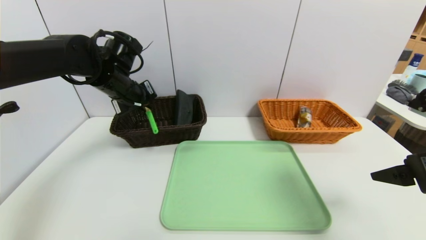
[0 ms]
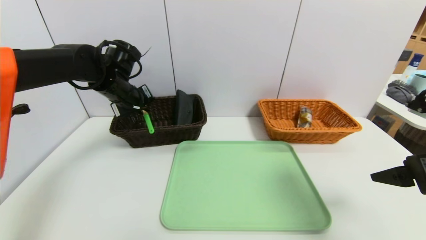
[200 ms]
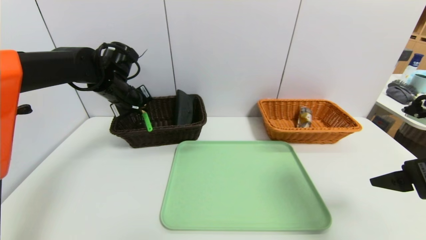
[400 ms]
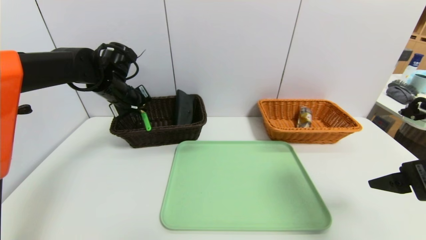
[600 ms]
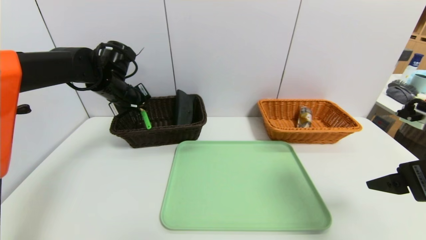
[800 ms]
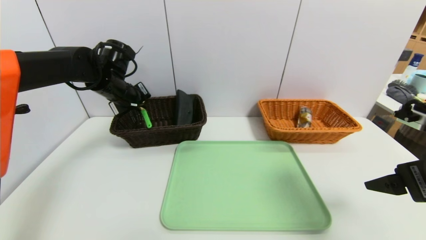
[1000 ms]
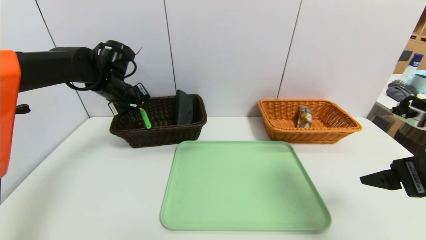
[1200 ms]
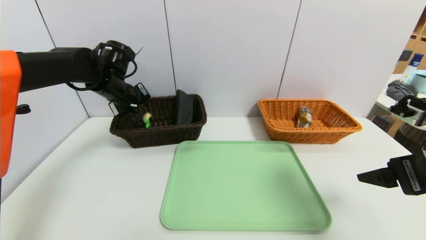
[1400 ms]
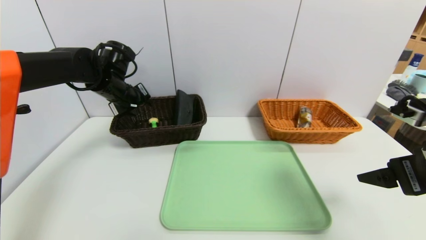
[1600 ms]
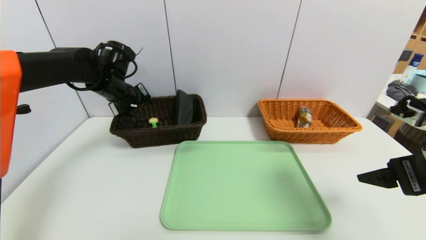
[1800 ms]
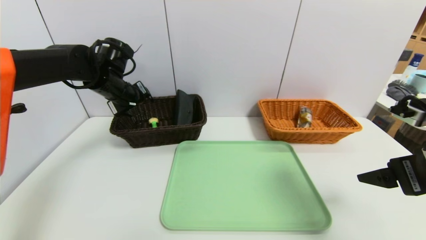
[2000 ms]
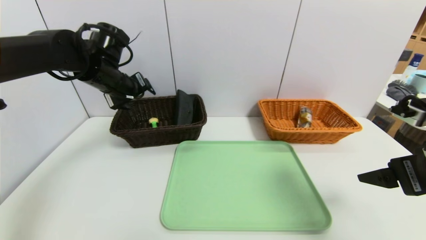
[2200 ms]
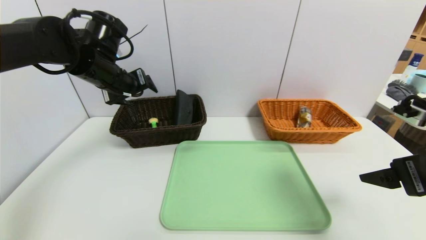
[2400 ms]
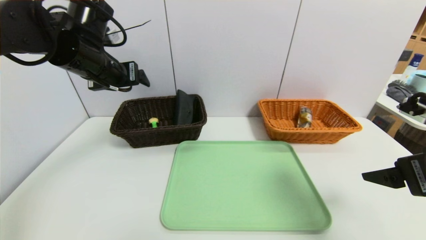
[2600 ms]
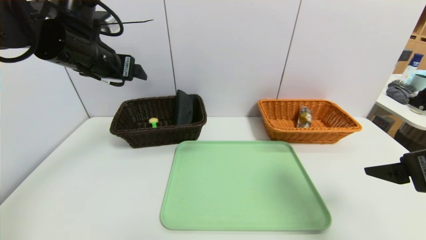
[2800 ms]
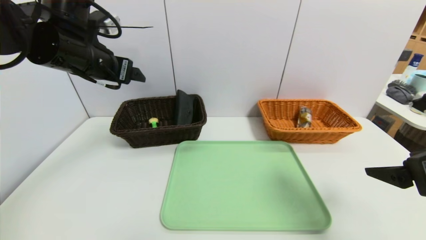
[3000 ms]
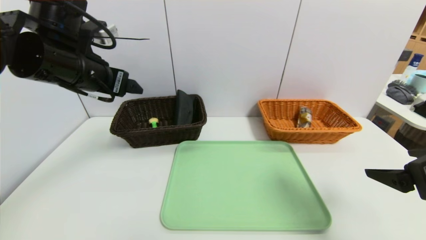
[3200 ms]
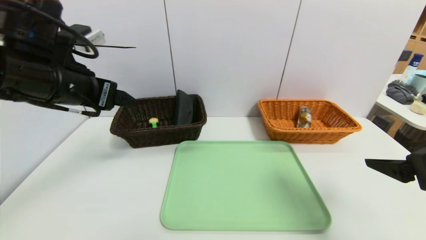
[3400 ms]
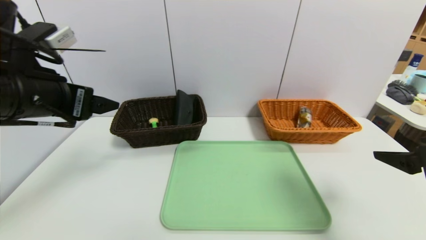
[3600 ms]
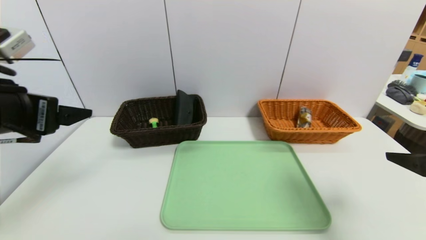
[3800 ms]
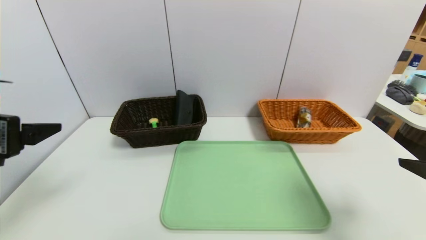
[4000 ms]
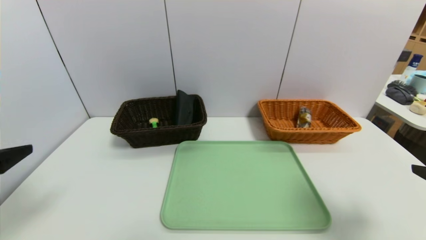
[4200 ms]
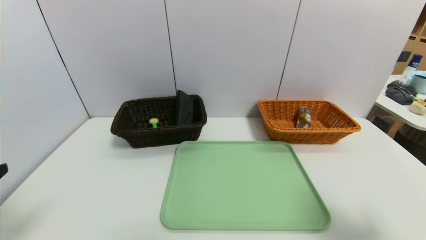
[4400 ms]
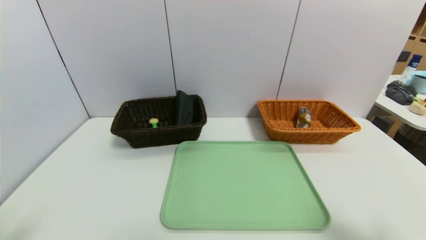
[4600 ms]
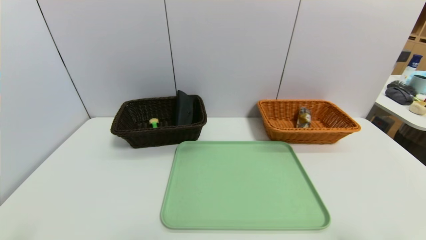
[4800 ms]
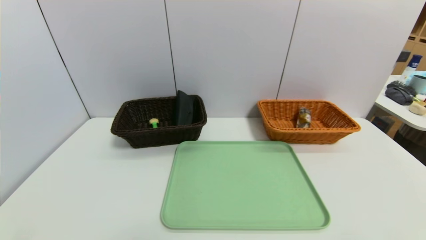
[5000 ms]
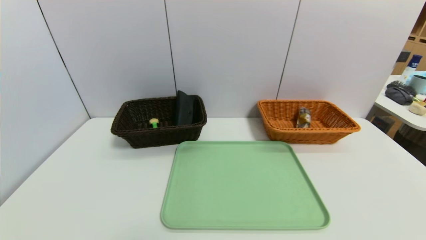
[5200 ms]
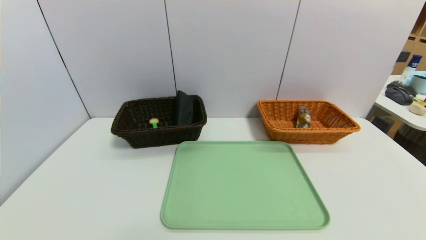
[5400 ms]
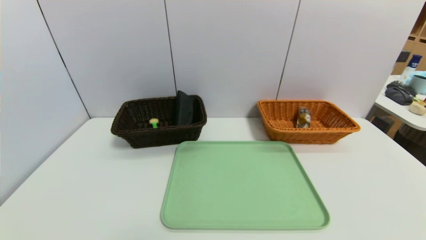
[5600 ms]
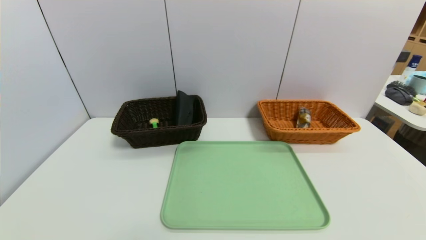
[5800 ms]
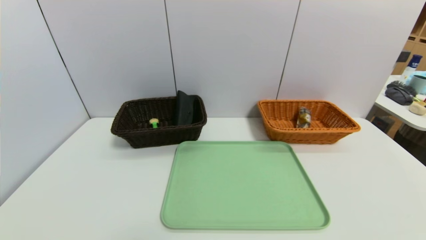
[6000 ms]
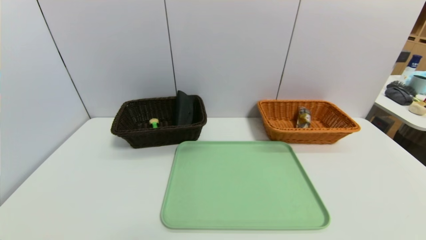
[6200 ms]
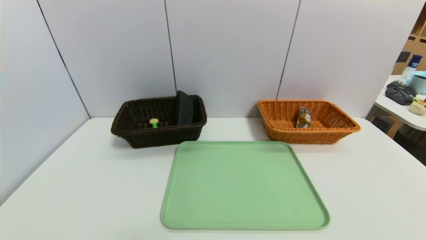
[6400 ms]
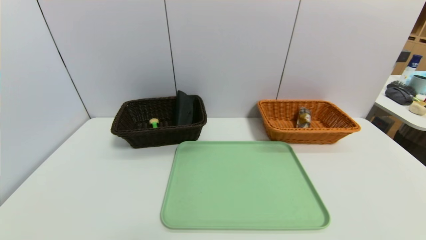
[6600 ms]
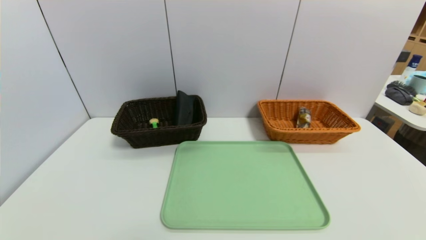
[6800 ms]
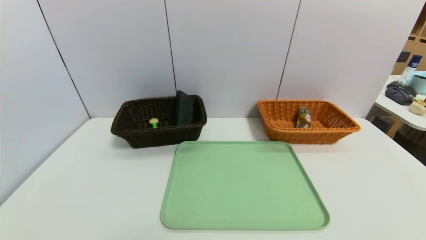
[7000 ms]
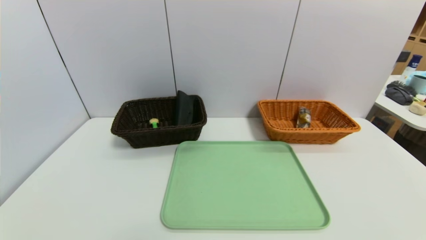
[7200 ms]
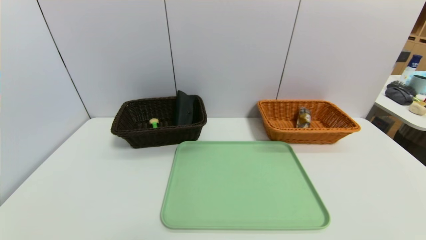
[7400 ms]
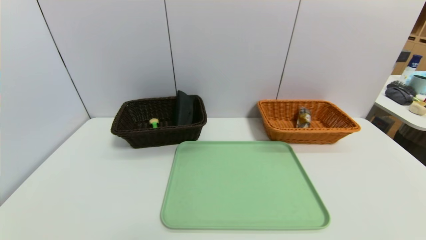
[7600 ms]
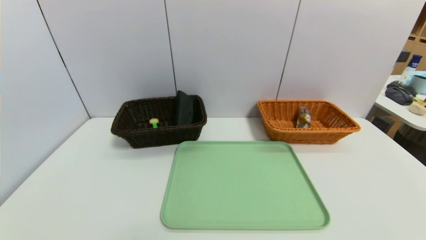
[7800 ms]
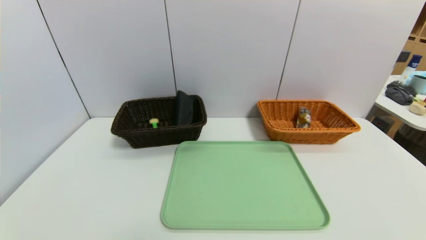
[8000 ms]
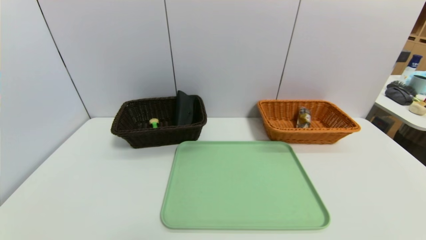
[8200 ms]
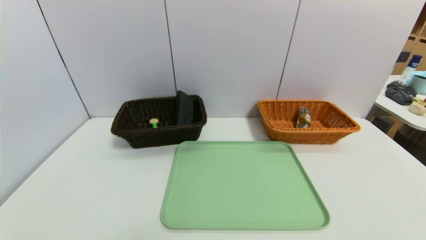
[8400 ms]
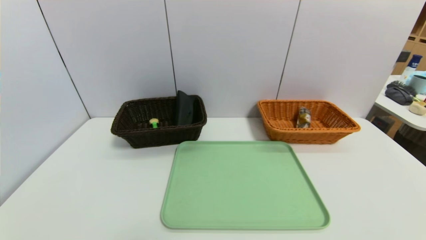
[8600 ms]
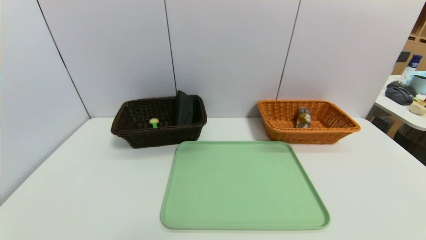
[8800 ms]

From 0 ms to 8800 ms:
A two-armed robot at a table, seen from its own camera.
Task of the whole recording: place the food in the right basket with the right gripper, and place the non food items in the left basket with the left gripper.
From 0 ms to 1400 ms: The grippers stay close to where they were, moving slightly.
From 1400 ms to 3000 ms: The left gripper shifts some 15 cm backward and upward, and opens up.
From 3000 ms to 4400 ms: The right gripper moves backward, roughly 10 cm. Meanwhile the left gripper moves backward, roughly 25 cm.
From 4400 ms to 5800 ms: The grippers both shift downward and backward by approximately 15 cm.
From 7400 ms to 8800 ms: The two grippers keep their place.

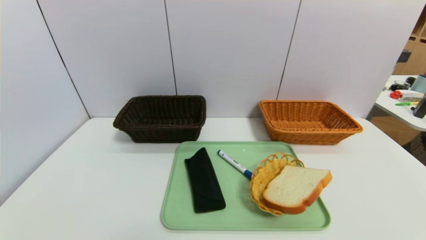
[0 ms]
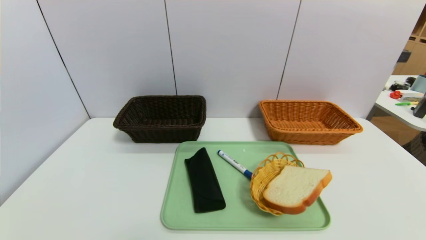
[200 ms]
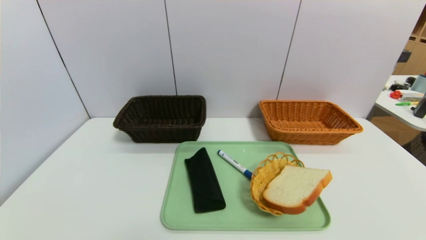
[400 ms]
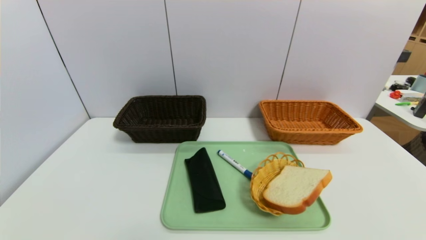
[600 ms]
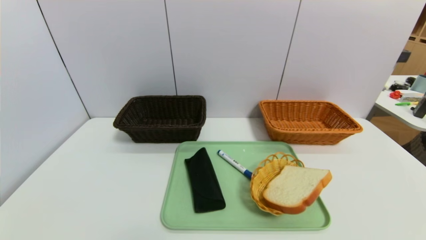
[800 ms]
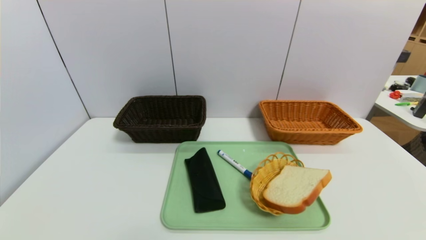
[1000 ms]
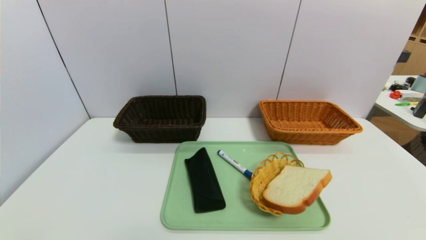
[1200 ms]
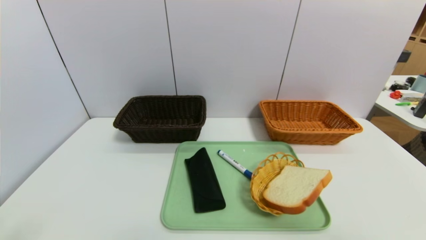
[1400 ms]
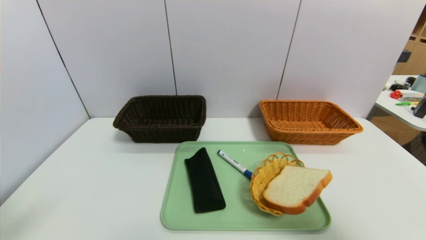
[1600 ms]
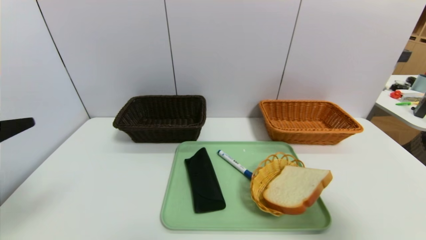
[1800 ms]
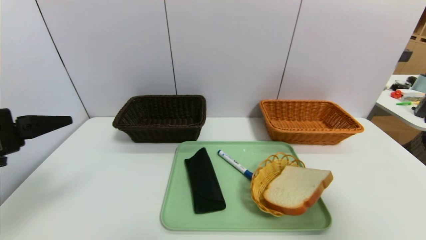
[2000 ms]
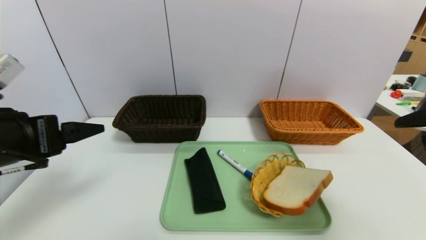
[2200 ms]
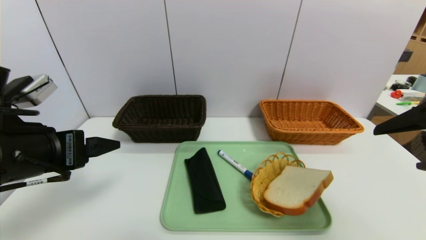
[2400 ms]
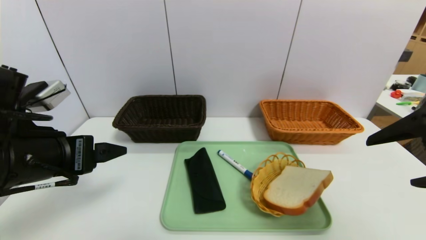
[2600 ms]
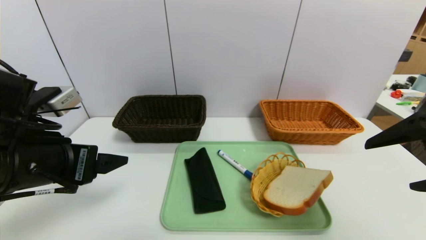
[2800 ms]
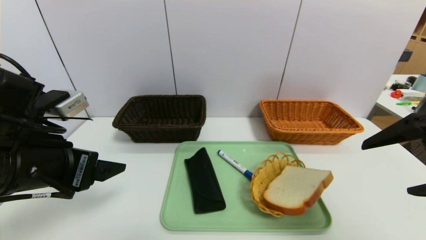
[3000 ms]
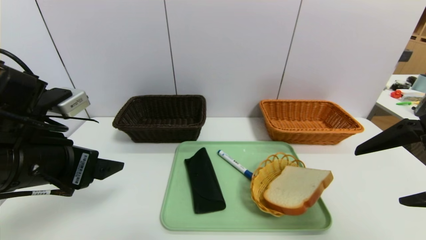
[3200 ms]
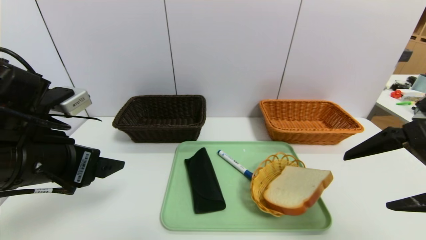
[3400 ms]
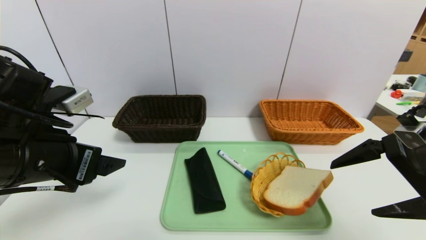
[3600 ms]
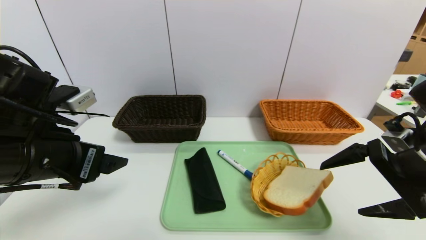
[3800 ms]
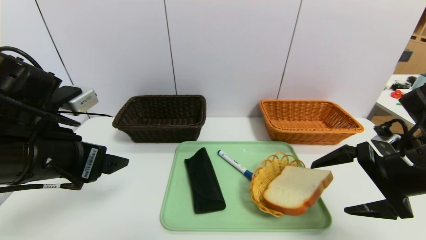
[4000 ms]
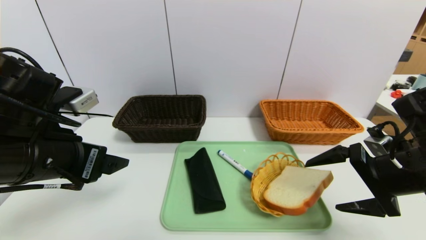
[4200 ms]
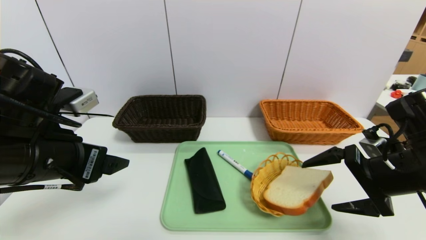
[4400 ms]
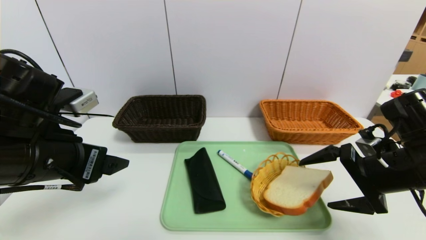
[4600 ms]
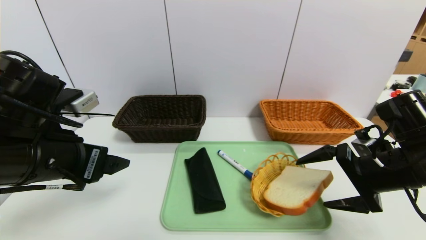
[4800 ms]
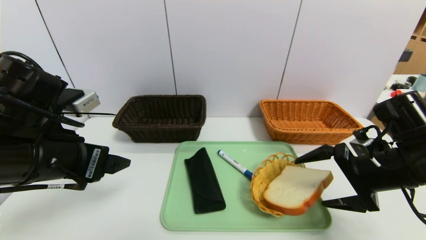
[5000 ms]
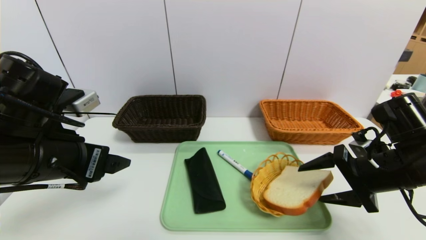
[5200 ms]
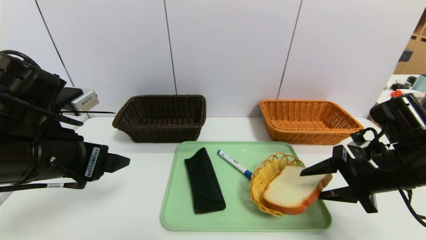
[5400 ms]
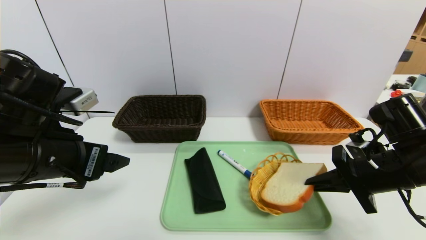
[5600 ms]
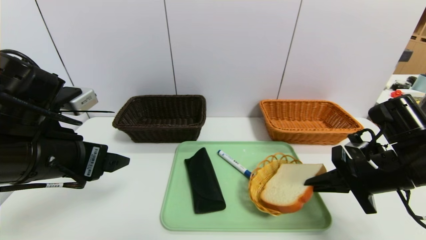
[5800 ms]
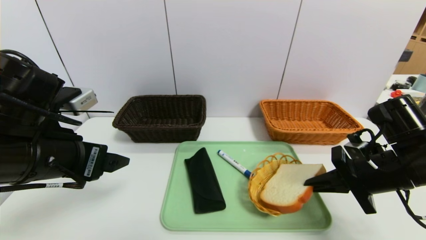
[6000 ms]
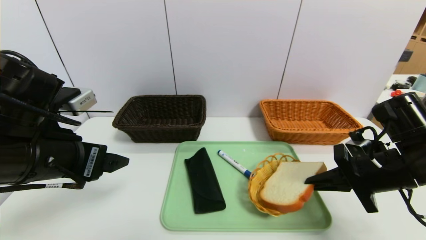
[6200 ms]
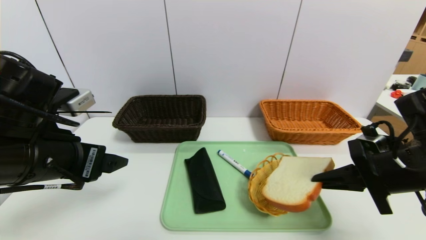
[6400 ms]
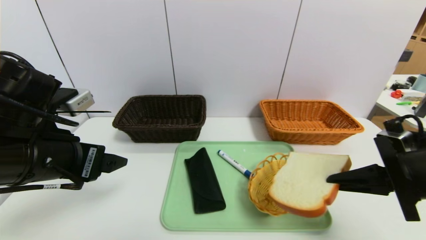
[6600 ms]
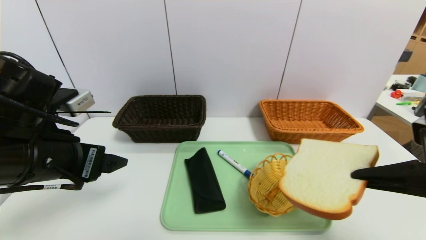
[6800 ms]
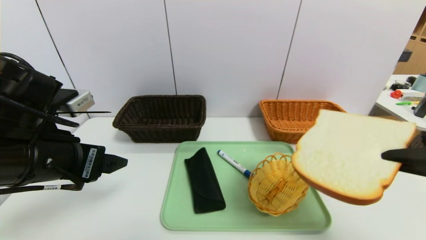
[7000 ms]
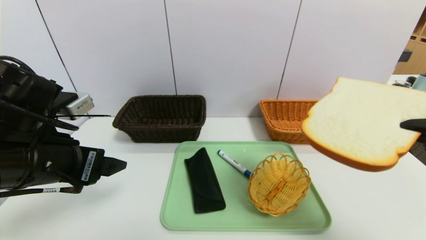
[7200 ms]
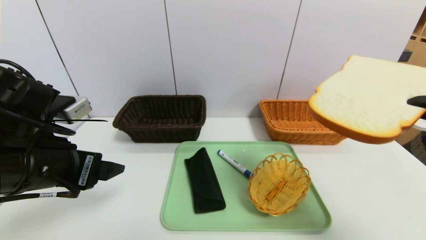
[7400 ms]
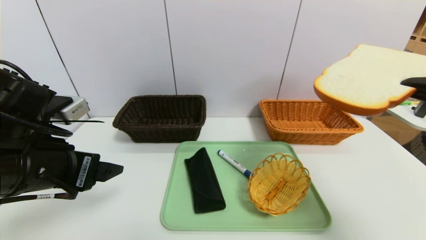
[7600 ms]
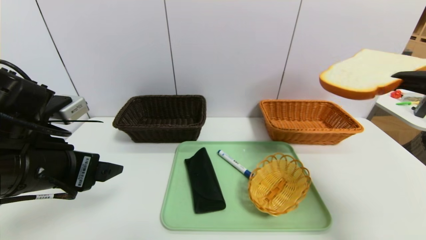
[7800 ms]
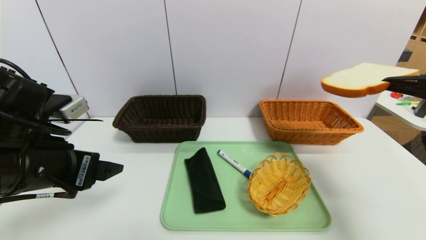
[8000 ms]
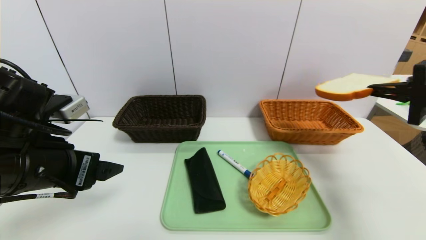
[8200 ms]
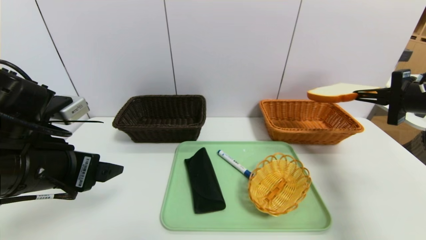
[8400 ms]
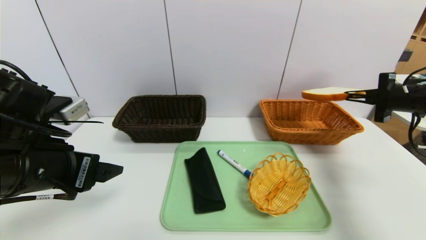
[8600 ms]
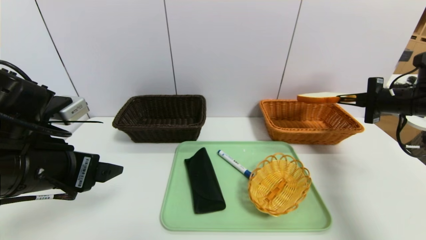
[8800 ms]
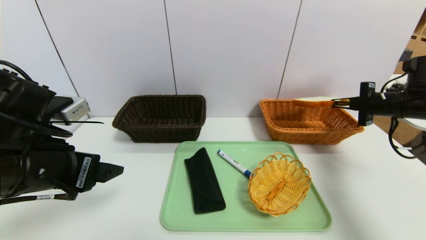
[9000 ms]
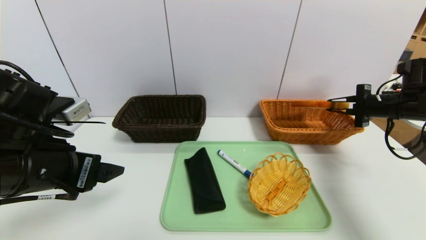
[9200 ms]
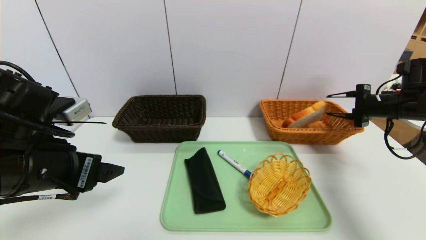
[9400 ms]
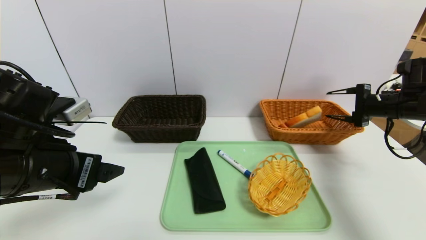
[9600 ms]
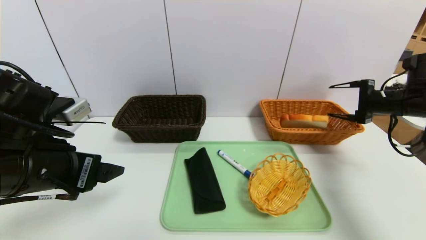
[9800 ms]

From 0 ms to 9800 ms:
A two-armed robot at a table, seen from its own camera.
Task of the whole recording: place the food in the right basket with the right gripper, and place the non food items in the left basket with the left gripper.
From 1400 ms to 2800 ms: The right gripper goes some 15 cm forward. Meanwhile the left gripper shifts approximately 15 cm forward and to the right.
From 2800 ms to 4200 ms: The right gripper heads downward and forward, covering approximately 10 cm.
From 4200 ms to 5600 ms: The right gripper closes up.
From 5600 ms to 7000 ms: The right gripper shifts about 15 cm backward and upward.
From 7000 ms to 8400 ms: The right gripper heads forward and to the right, covering some 20 cm.
From 8400 ms to 9800 ms: The right gripper goes about 5 cm forward, and opens.
